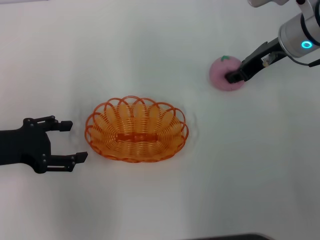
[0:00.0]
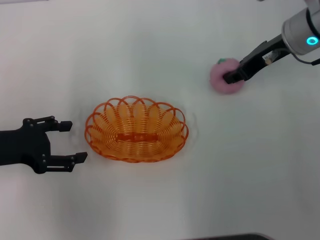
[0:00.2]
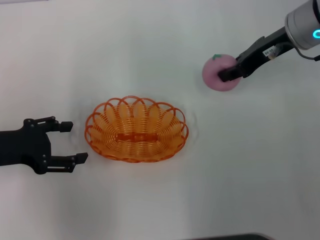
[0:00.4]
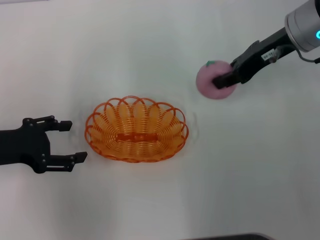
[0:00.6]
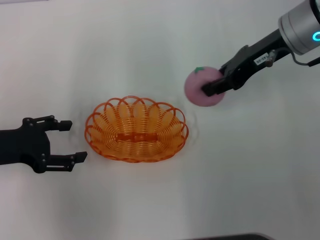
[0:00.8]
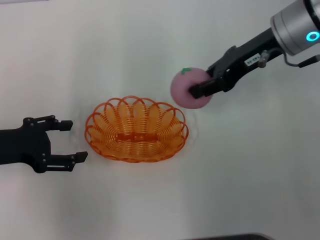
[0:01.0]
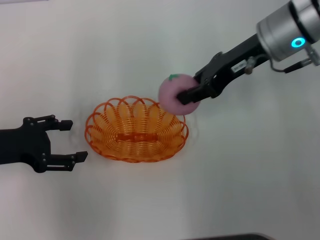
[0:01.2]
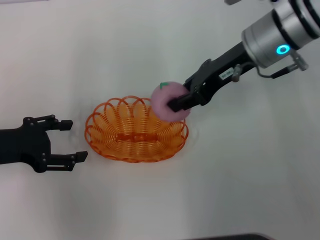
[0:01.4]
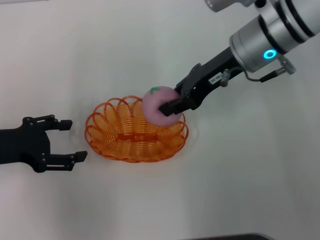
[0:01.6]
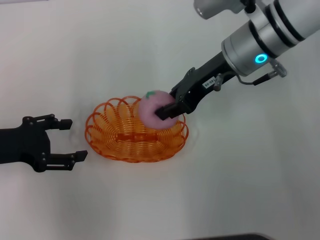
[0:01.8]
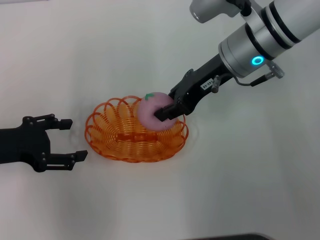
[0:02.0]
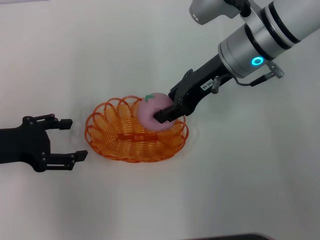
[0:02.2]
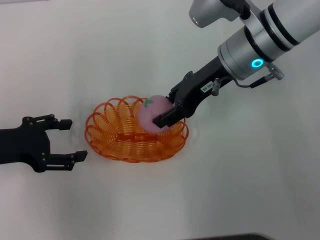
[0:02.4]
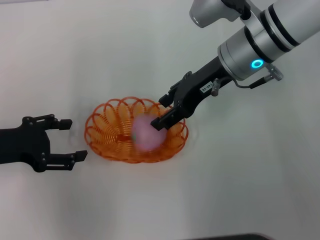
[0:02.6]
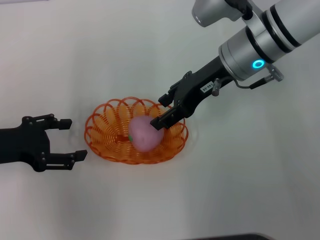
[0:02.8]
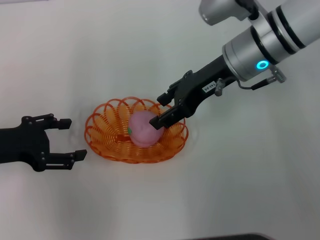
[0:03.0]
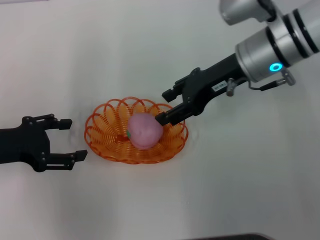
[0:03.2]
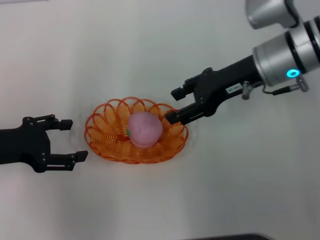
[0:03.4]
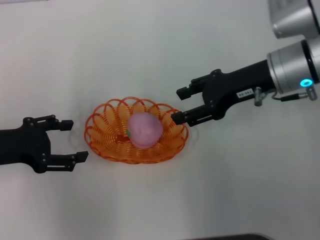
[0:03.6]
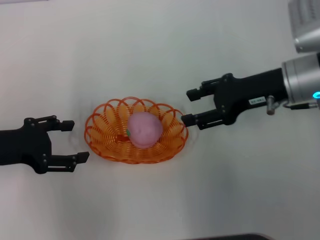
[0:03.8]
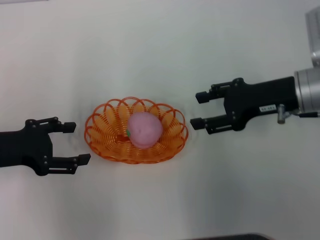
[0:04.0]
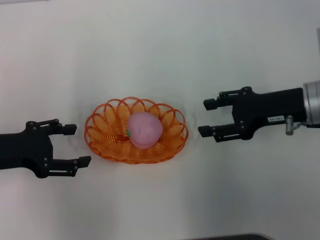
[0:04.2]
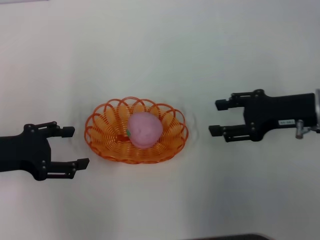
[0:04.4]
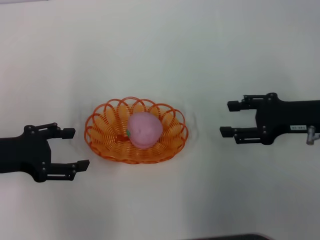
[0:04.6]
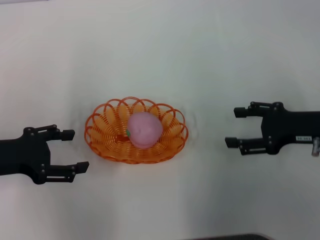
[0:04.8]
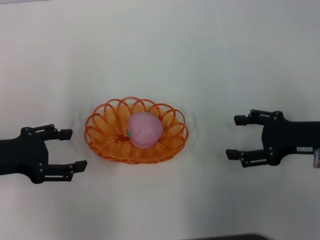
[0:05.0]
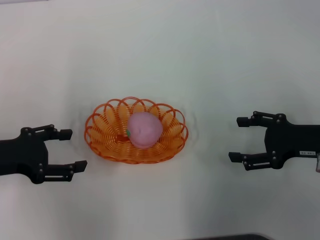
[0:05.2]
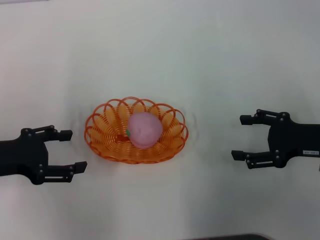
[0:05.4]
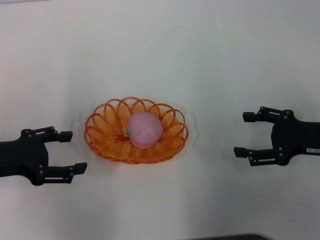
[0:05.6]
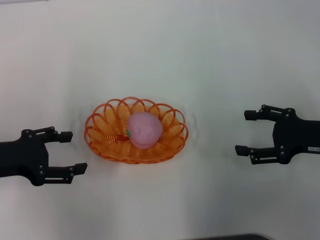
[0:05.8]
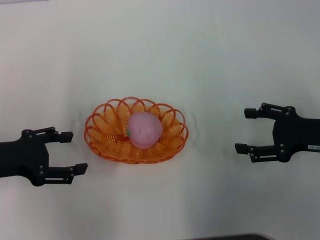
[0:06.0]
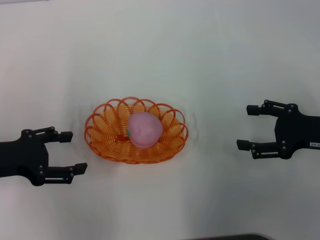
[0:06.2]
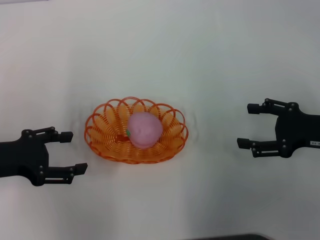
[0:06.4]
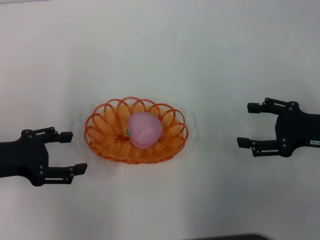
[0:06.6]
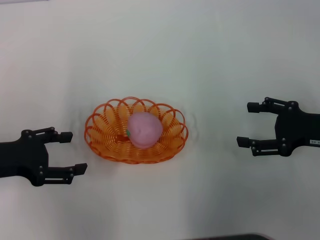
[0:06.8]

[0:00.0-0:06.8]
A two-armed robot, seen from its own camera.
Step, 0:01.2 to 0:03.8: Place the peach into the basket with the right gripper.
0:00.0 to 0:01.4: The right gripper is displaced to the left by approximately 5 cm.
0:01.4 to 0:02.8: The right gripper opens its fingers.
0:02.8 to 0:04.0: The right gripper heads to the right and backward, covering about 10 cm.
0:04.0 to 0:05.4: The right gripper is displaced backward, to the right and downward by roughly 10 cm.
0:05.4 to 0:06.8: Neither gripper changes place.
